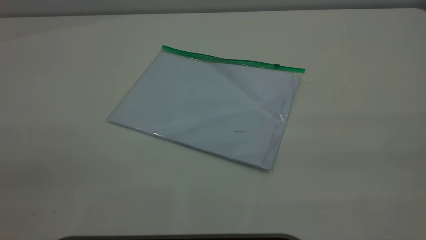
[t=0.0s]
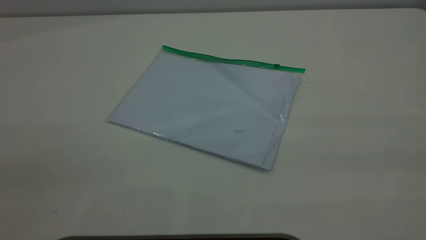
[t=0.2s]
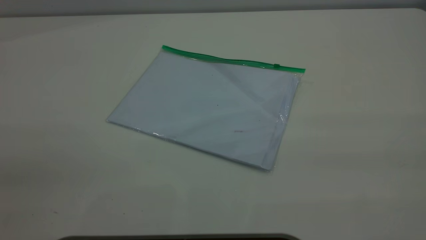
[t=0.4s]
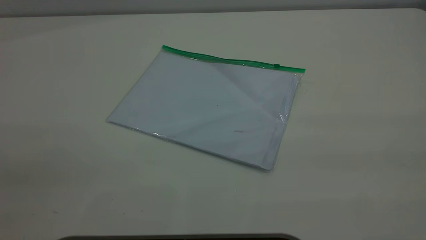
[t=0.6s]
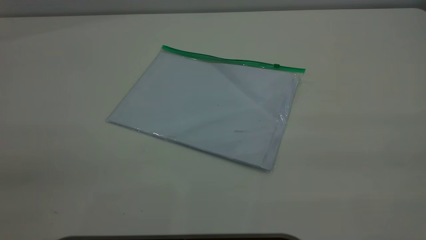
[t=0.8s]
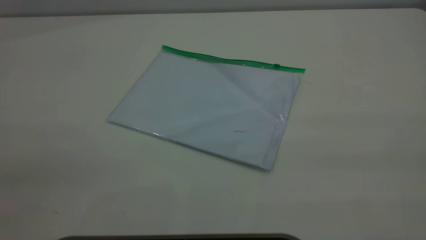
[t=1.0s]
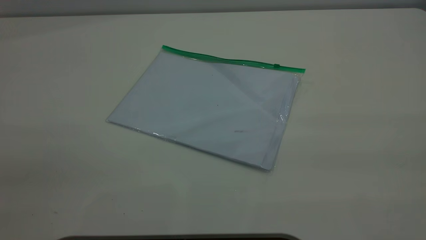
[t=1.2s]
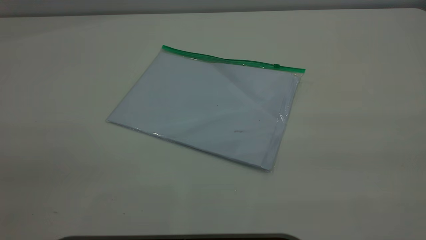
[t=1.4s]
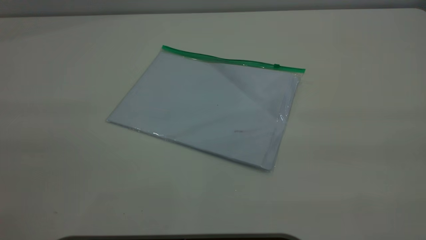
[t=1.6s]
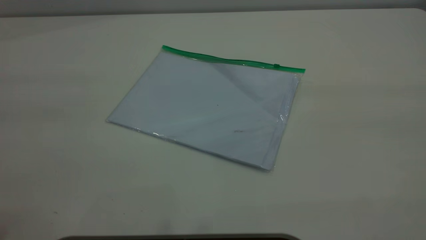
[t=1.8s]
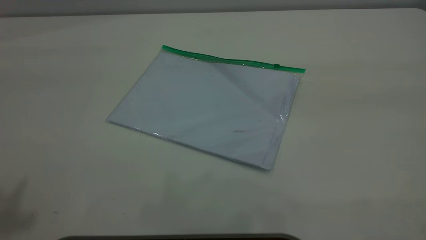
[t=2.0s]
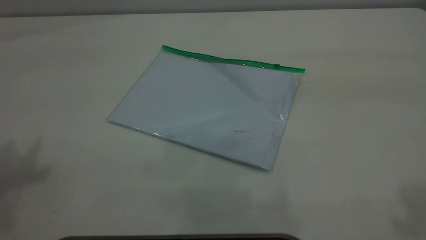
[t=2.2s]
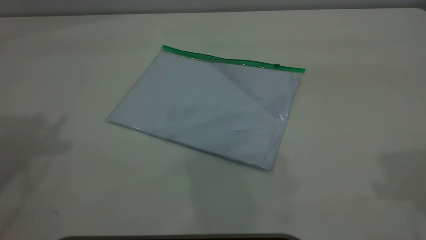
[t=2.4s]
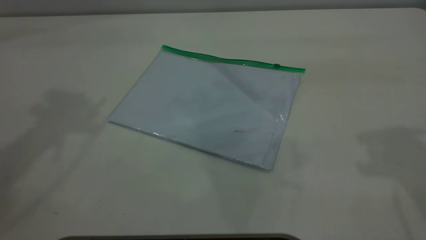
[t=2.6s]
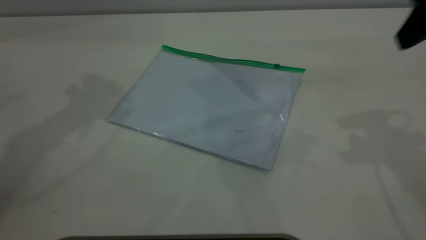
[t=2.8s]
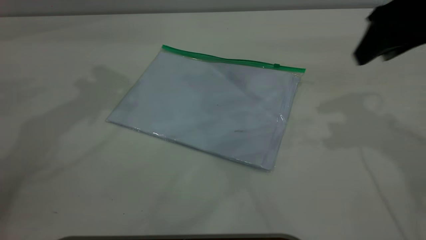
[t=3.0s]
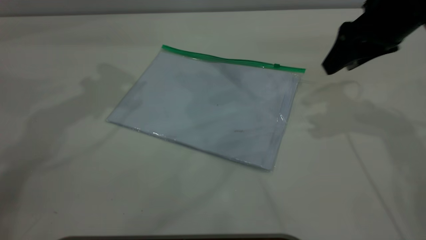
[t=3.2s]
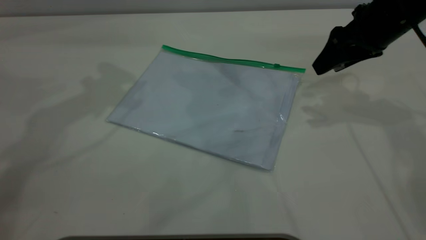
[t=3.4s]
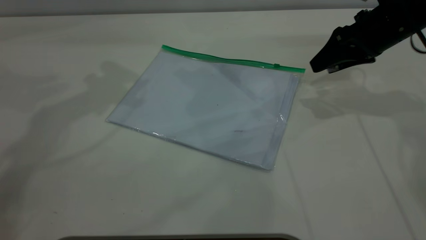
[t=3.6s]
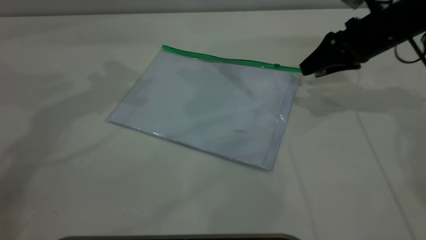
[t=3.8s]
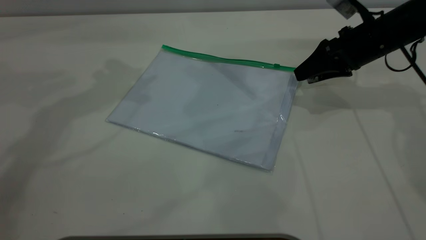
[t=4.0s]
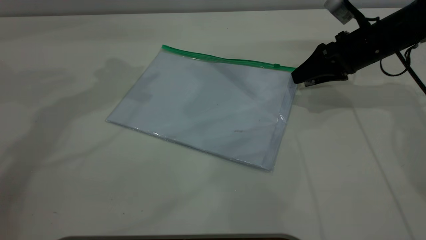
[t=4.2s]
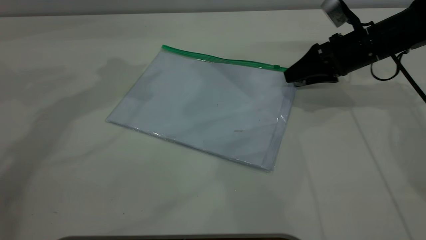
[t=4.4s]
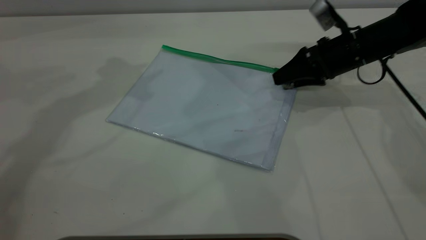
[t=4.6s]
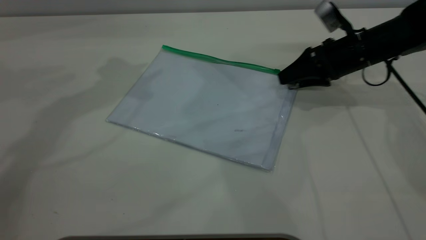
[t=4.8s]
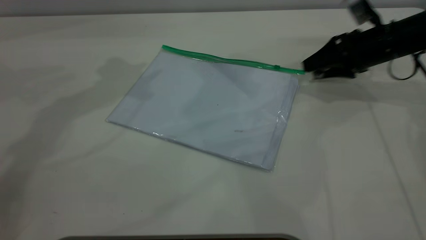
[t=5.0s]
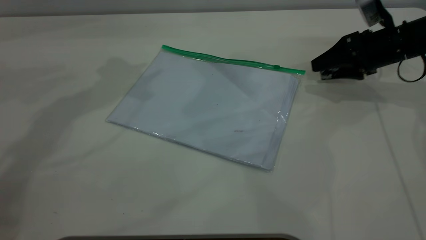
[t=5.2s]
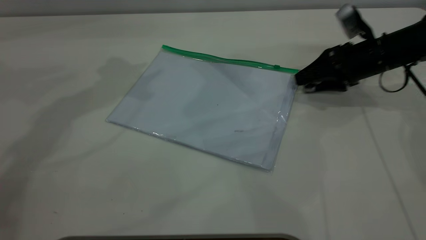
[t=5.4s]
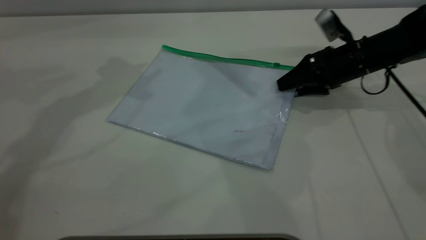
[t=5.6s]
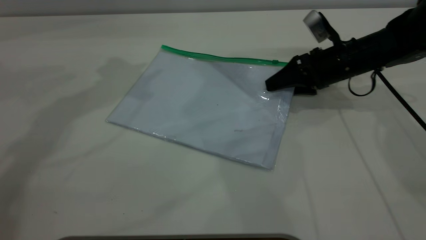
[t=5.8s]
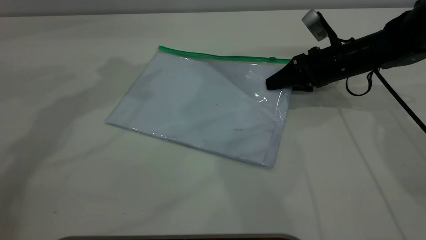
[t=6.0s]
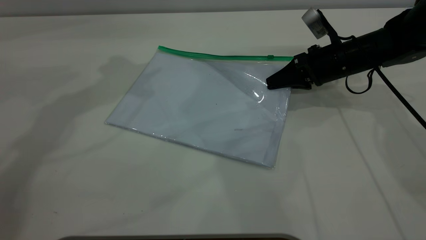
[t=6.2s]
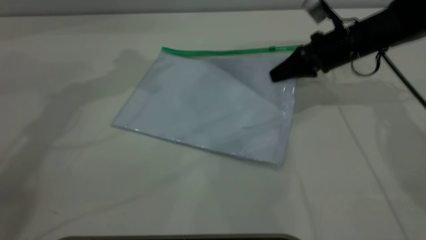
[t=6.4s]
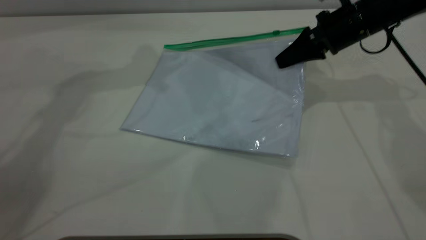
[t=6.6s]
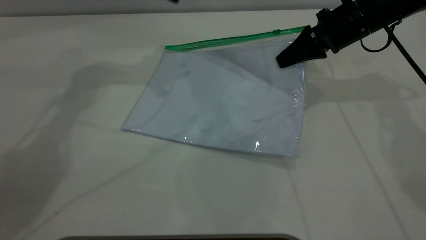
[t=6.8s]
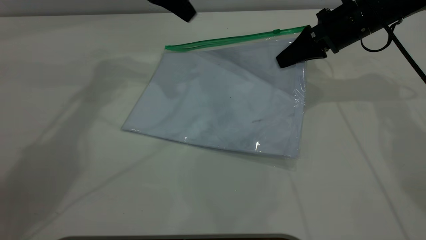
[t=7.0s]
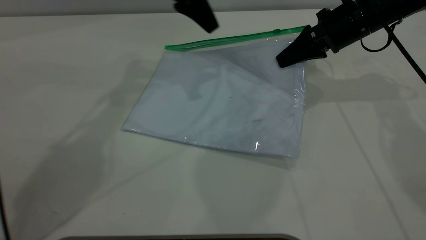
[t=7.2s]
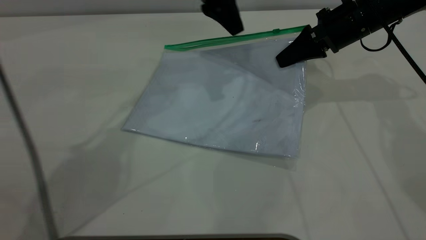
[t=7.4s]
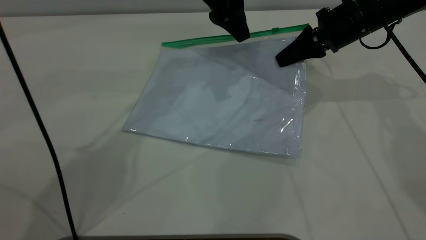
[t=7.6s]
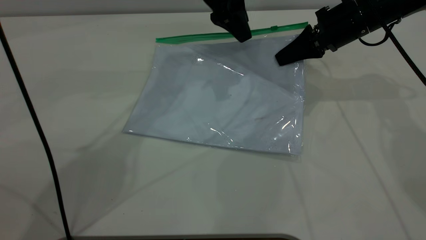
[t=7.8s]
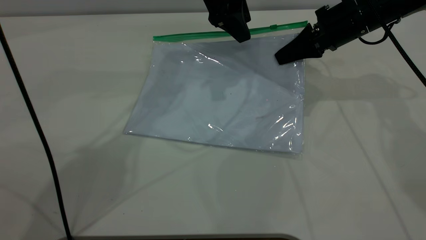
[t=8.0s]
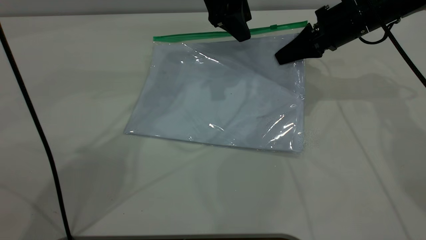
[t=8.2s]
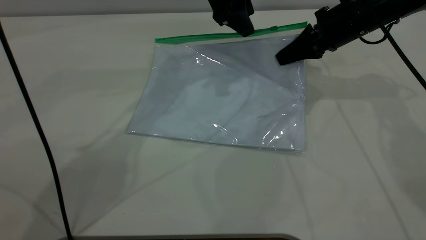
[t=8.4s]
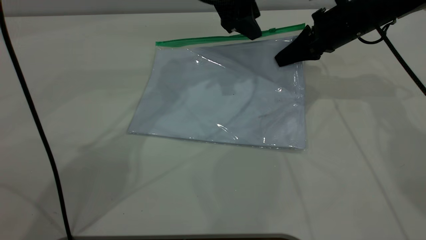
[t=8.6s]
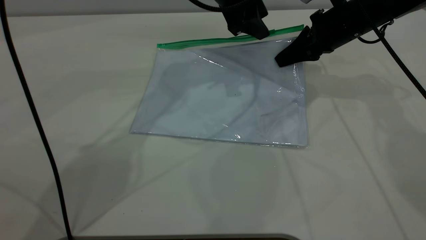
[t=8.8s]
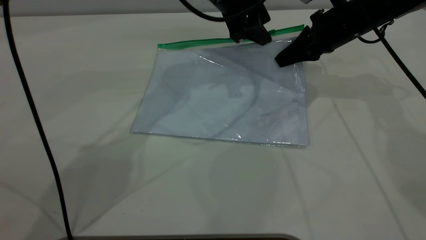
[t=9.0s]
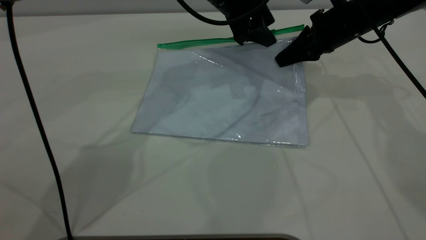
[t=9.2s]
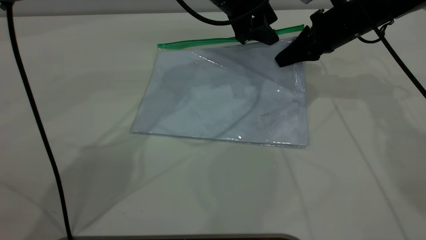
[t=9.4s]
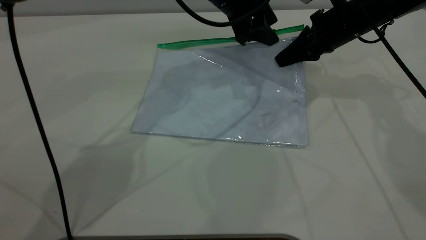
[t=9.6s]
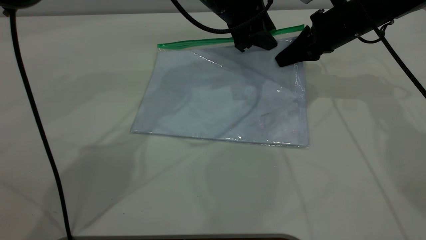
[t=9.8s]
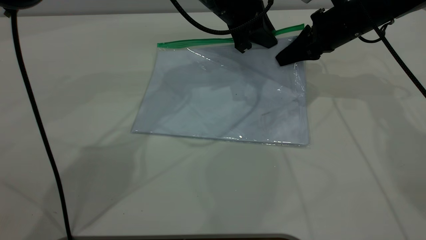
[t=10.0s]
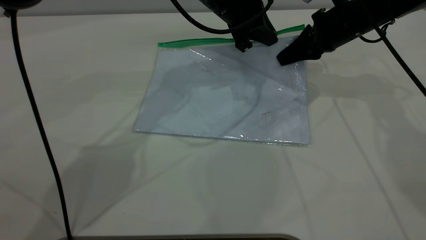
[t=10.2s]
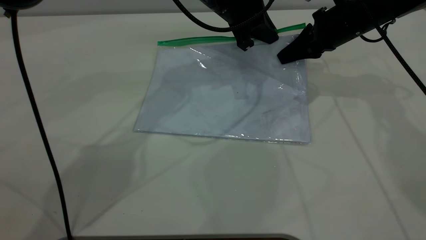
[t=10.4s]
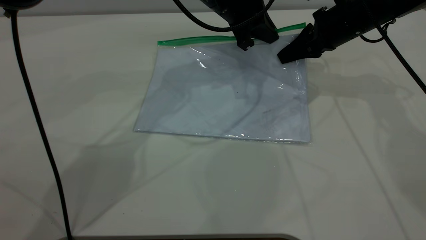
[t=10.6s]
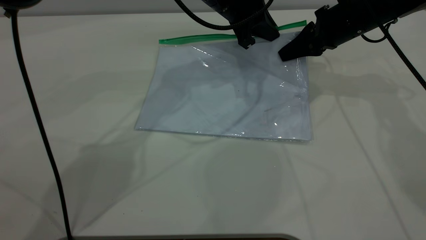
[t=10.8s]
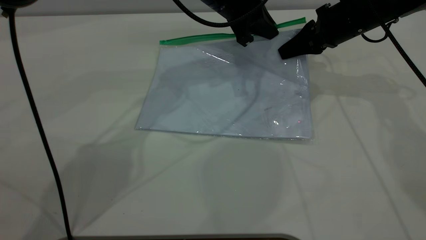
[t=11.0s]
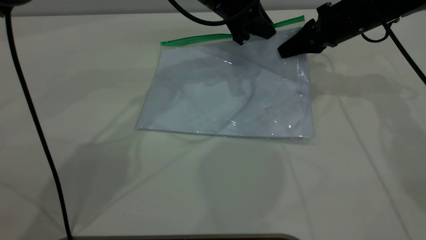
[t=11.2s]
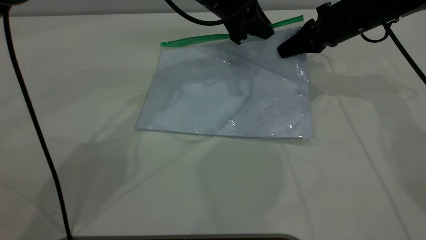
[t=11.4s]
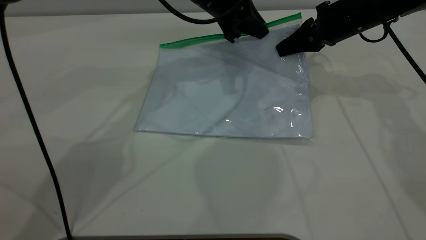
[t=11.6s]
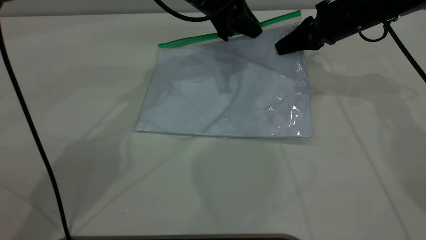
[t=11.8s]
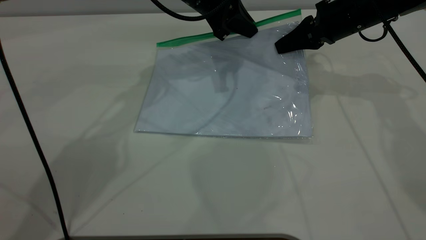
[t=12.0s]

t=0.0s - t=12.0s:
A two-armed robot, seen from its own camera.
Step, t=0.0s - t=6.4s: Pick up the transparent plastic bag with the right gripper.
t=1.6s - t=3.0s: The right gripper is displaced forward and downward by some 35 cm, and opens its fingers.
t=3.0s - t=4.4s: The right gripper goes approximately 15 cm downward and forward.
t=4.4s - t=6.0s: The right gripper moves about 5 cm to the right and comes back, and closes.
t=6.0s - t=7.6s: The left gripper travels to the right and downward by approximately 20 cm. Meanwhile the right gripper travels upward by roughly 10 cm.
t=7.6s - t=9.0s: The grippers move only a little.
t=9.0s - t=10.4s: The left gripper closes up.
t=10.4s - t=12.0s: The left gripper changes place by about 5 cm.

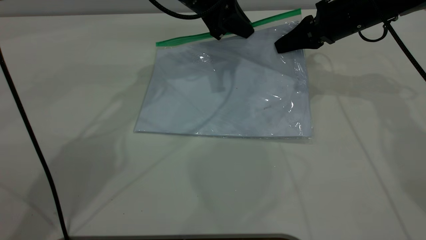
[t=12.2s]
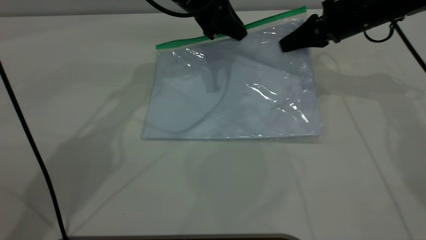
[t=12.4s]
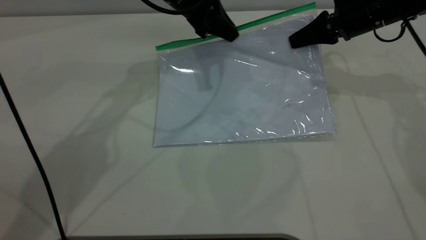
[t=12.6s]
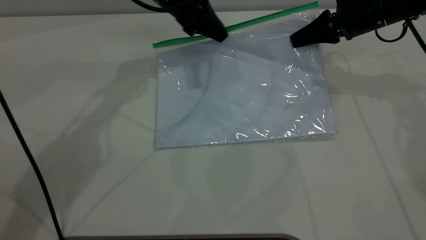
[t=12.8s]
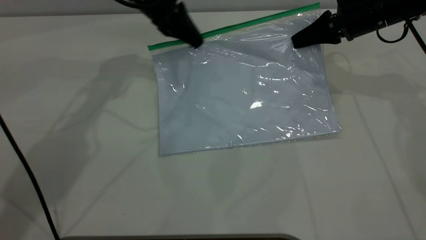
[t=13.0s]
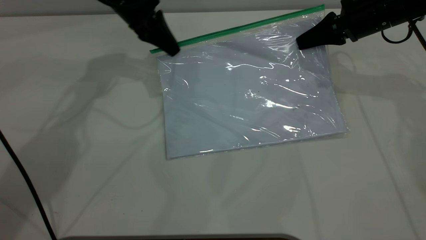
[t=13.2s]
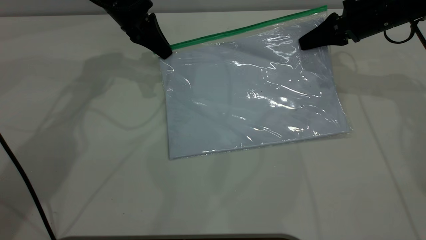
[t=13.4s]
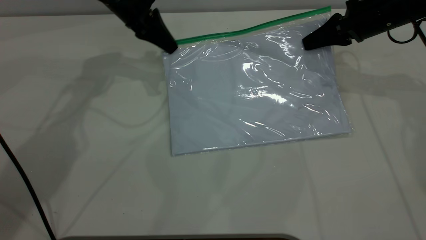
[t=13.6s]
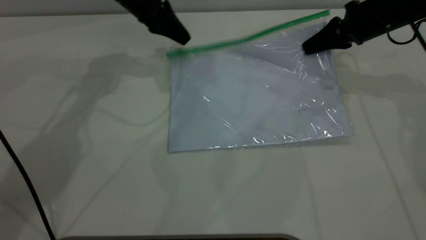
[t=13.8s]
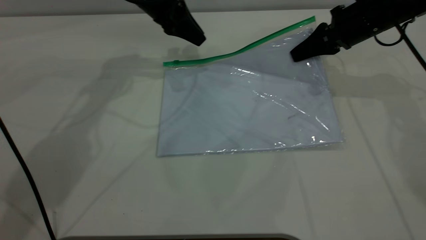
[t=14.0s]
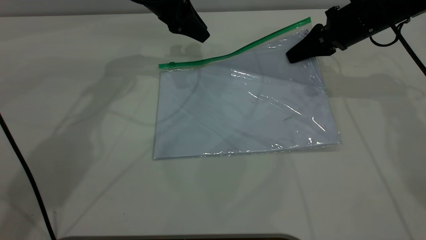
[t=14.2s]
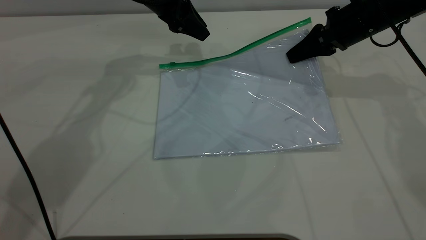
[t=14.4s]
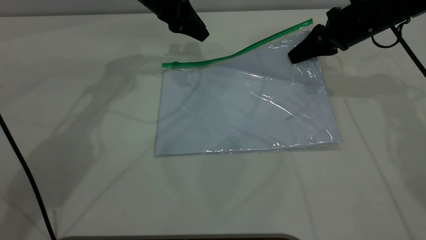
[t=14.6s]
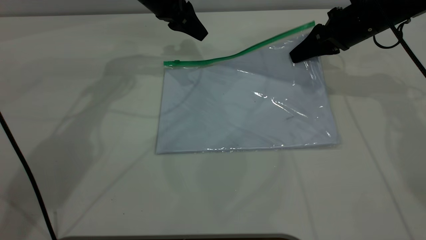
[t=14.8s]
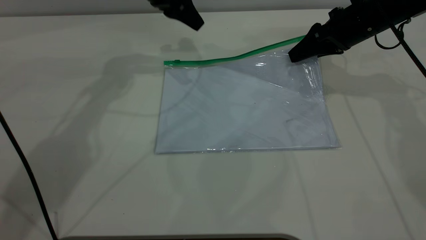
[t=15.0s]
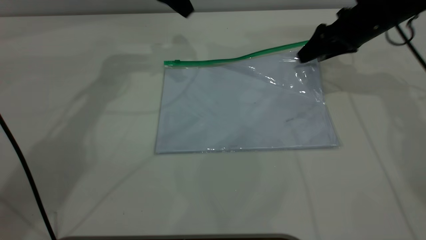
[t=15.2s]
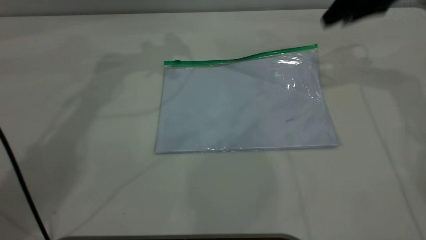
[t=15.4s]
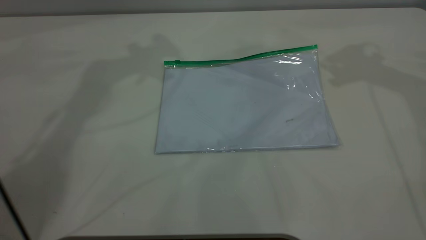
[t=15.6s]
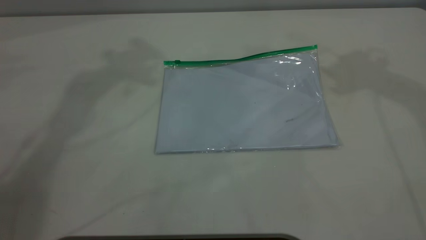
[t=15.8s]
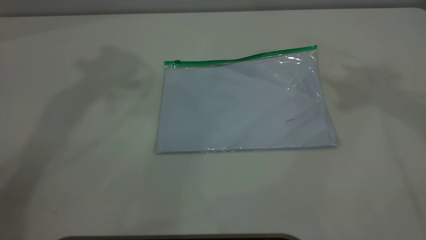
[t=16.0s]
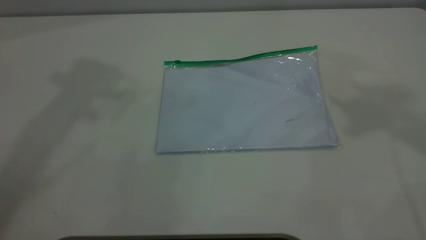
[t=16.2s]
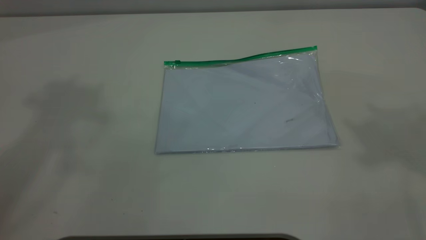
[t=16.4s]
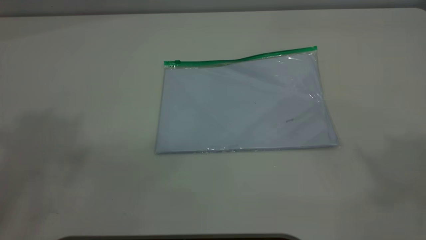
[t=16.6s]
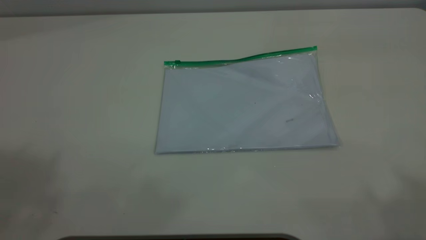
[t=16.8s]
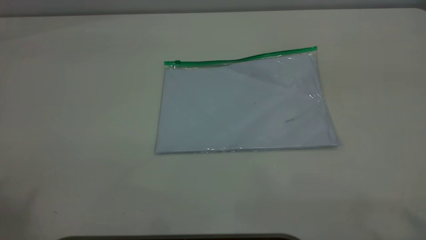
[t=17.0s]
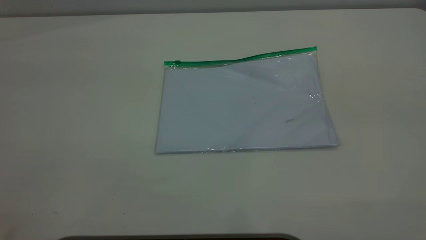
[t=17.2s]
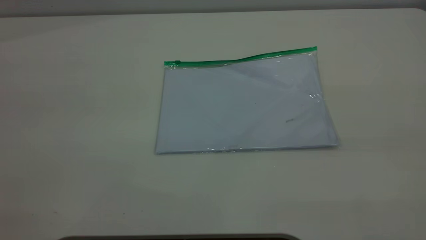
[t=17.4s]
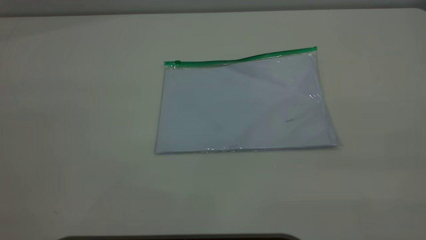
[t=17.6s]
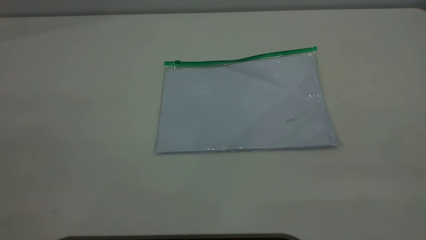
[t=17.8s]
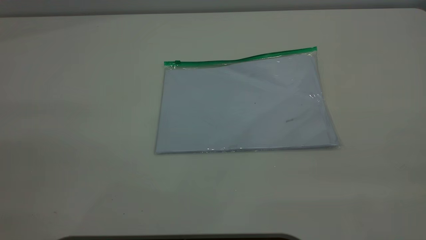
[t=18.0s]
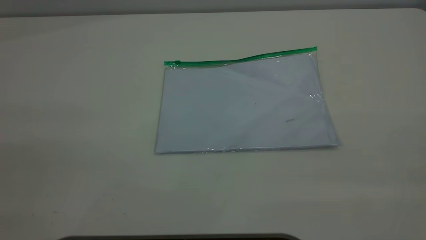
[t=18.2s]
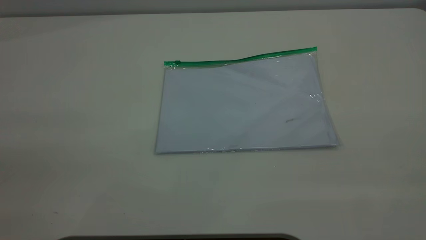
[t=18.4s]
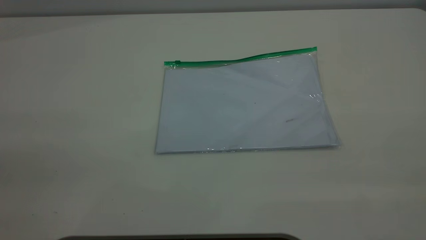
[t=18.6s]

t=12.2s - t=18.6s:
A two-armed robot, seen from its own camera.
Step, t=14.0s - t=15.2s: Place the transparent plastic bag.
t=12.2s - t=13.8s: The left gripper is displaced to the left by approximately 10 cm.
t=13.8s - t=15.4s: The left gripper shifts roughly 15 cm upward, and opens its fingers, while the right gripper moves upward, roughly 10 cm, and opens up.
t=15.4s - t=17.0s: The grippers both shift backward and upward by approximately 50 cm.
